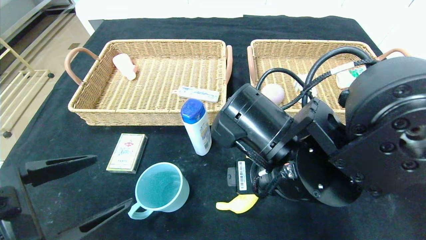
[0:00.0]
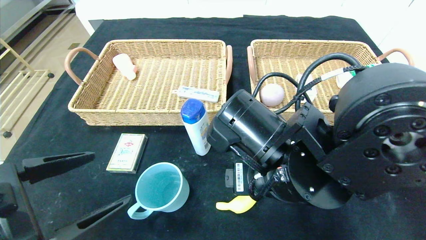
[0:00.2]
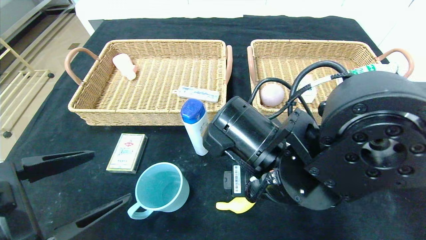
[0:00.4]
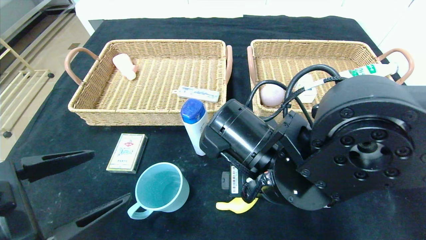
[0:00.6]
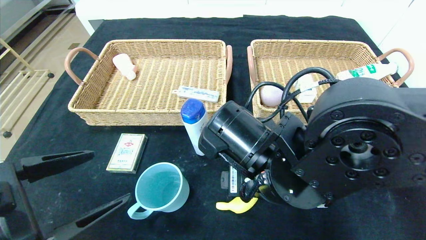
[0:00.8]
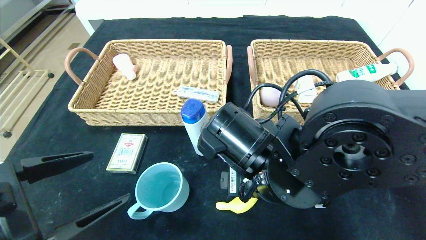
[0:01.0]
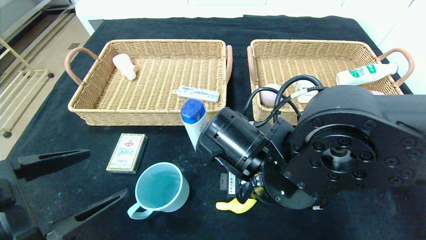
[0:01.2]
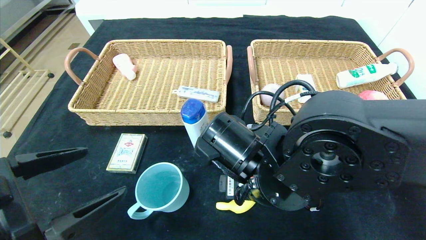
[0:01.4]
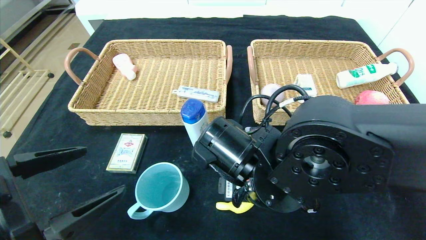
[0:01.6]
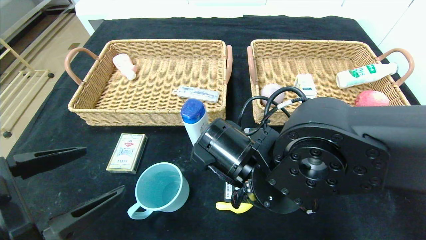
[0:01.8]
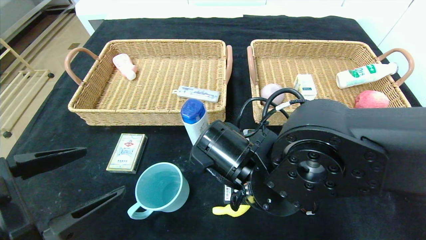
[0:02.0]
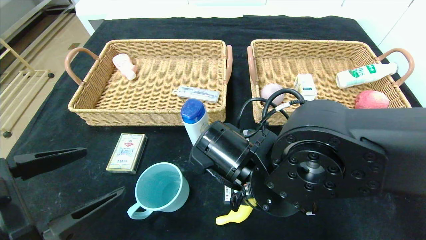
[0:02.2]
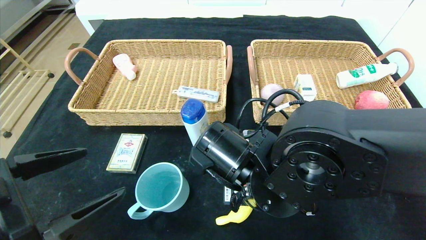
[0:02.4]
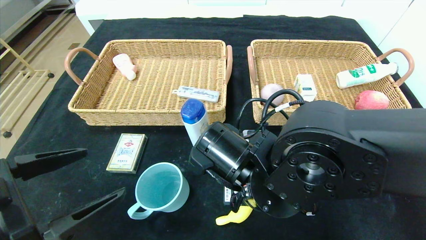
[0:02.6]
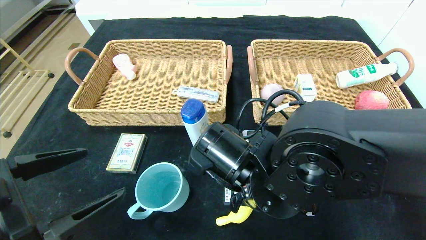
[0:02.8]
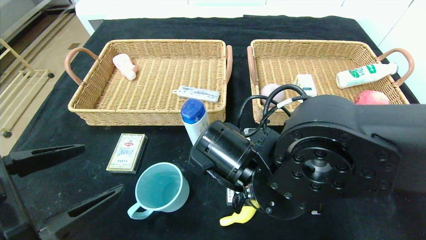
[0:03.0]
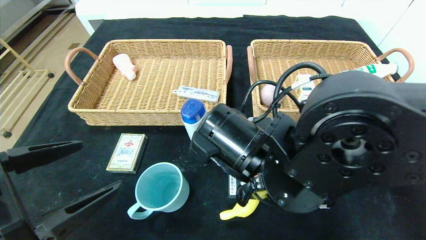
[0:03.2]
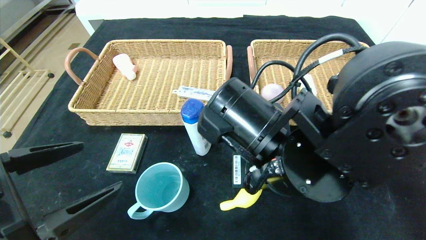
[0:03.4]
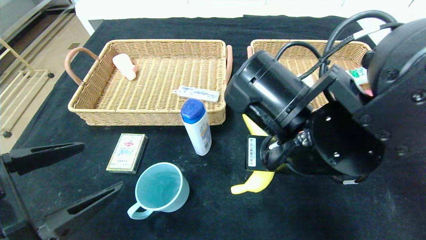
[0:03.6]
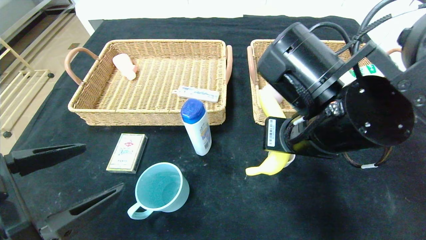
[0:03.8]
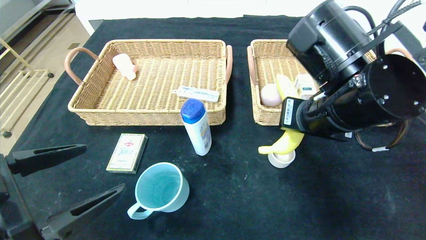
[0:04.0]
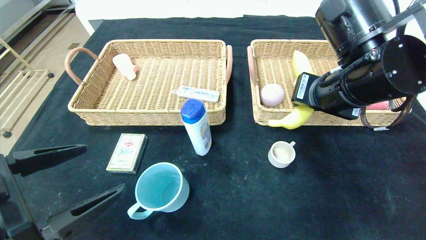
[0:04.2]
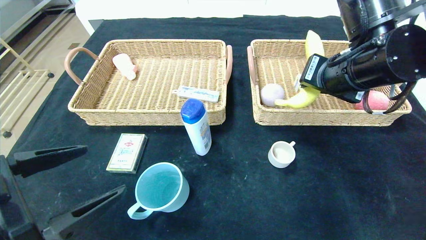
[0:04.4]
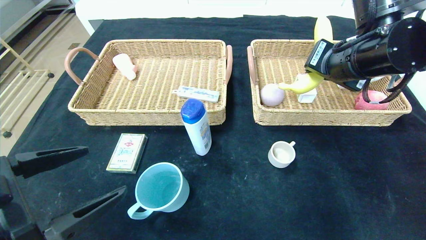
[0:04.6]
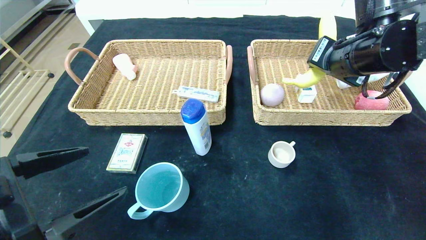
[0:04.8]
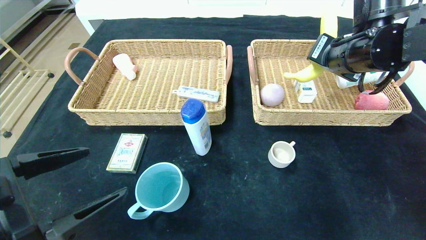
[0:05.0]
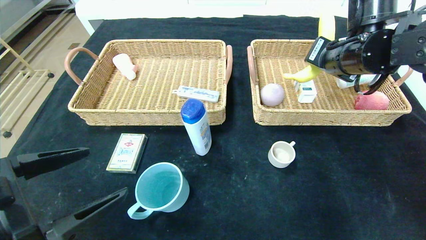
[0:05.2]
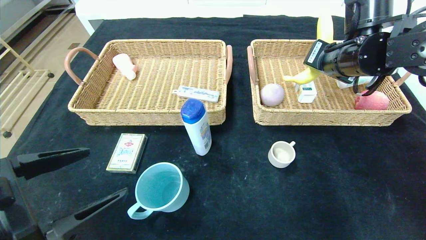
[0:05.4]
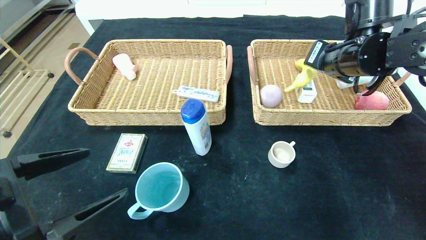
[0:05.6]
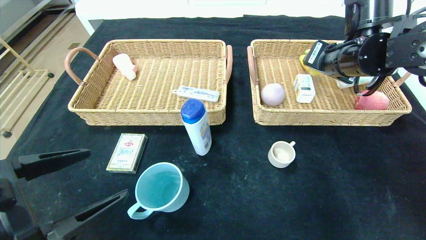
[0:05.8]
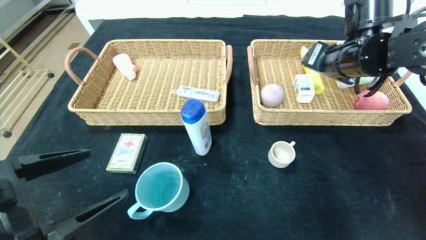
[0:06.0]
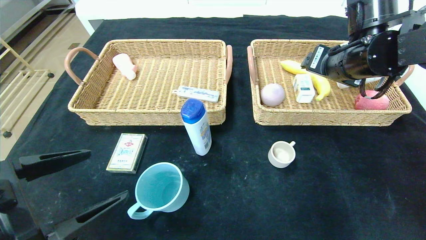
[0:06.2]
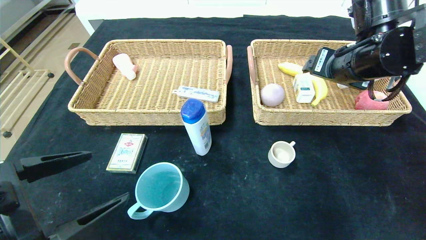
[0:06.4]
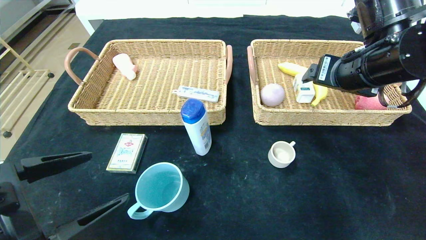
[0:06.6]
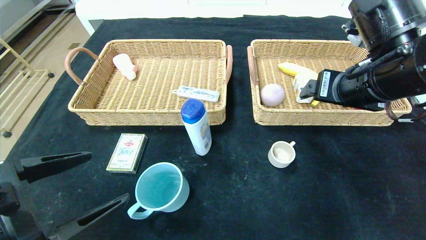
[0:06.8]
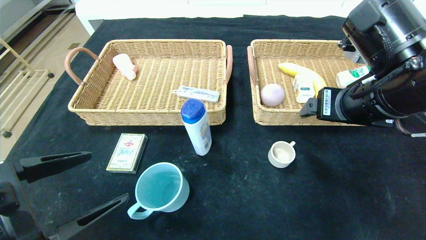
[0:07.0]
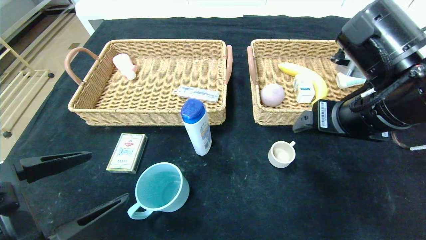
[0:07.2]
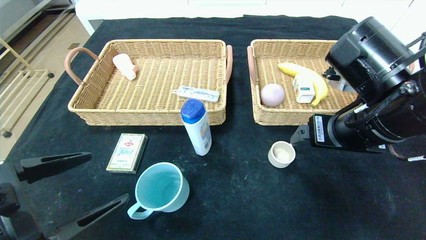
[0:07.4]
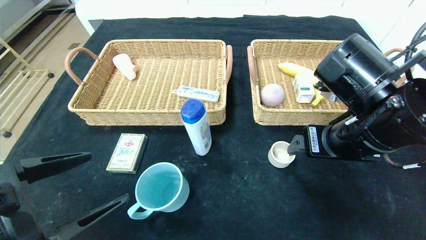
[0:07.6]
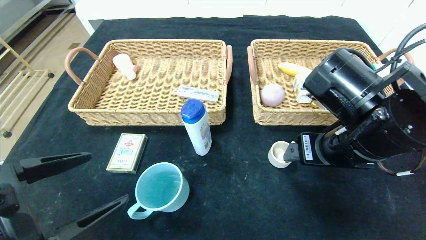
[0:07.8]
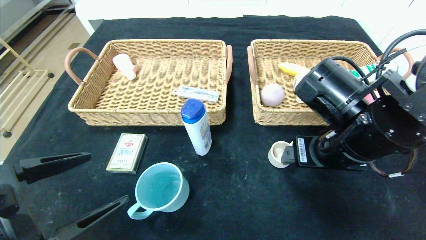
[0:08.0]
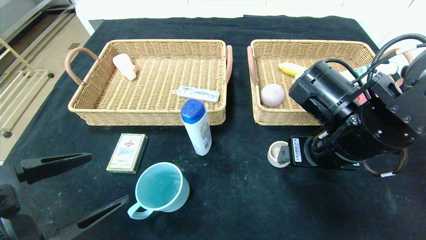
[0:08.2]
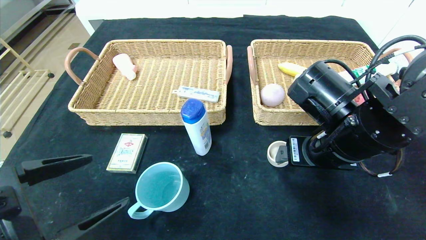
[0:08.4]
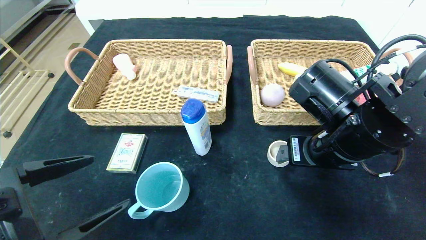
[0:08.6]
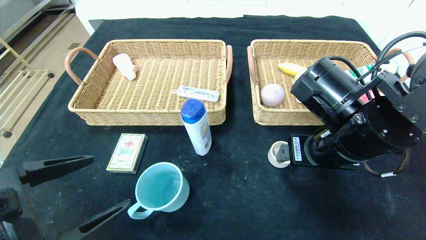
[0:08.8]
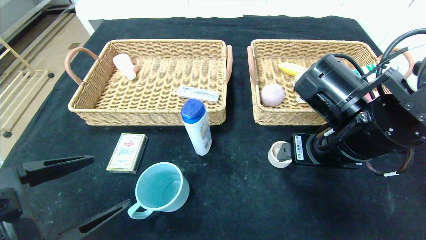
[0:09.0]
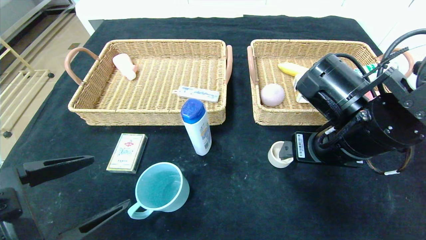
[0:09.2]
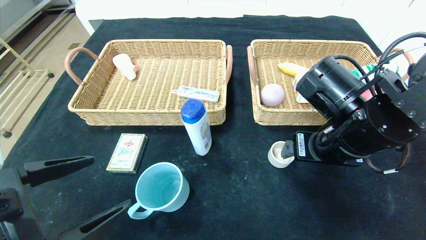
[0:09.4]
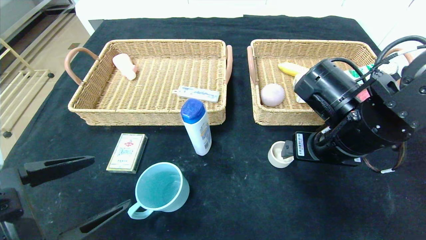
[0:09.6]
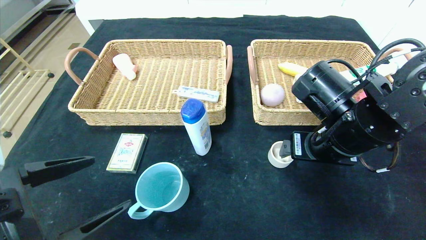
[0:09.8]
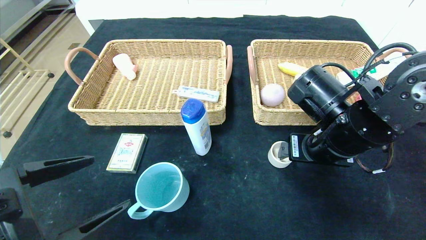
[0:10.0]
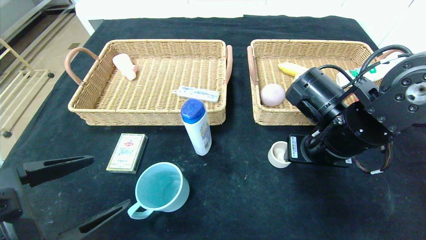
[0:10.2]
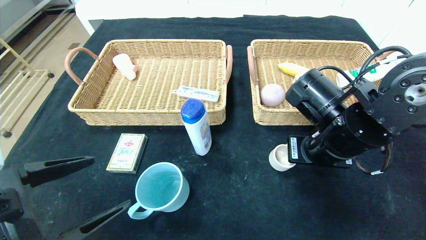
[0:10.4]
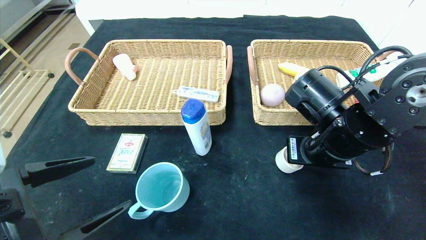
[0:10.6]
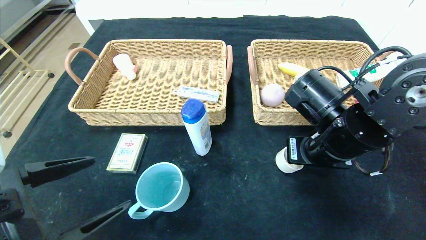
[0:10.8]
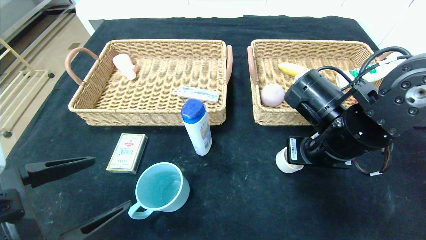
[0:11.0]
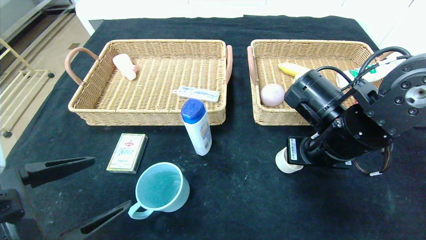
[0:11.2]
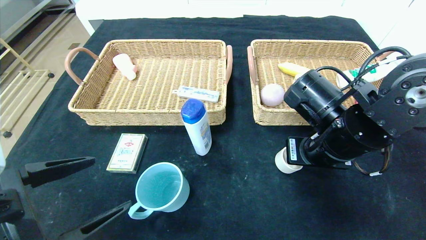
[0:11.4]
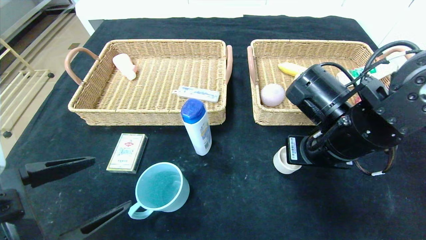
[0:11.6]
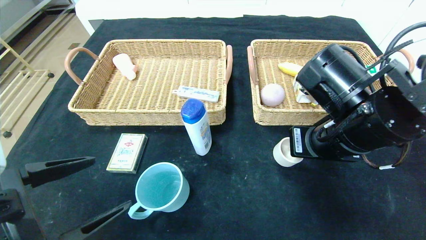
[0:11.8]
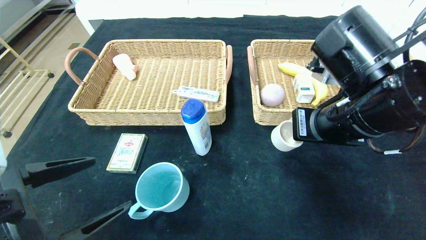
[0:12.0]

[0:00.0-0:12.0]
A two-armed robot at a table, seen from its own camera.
Step, 0:00.0 to 0:07.4: Pick up the banana and put it in the right basket.
0:01.6 to 0:03.0: The right gripper closes up.
0:03.0 to 0:04.4: The right gripper shifts about 20 cm to the right, upward and forward.
0:04.4 to 0:06.0: The right gripper travels forward by about 5 cm, and opens up.
0:06.0 to 0:07.6: The right gripper shifts about 15 cm backward and downward.
0:07.6 to 0:09.0: The grippers make only small movements.
0:09.0 to 0:10.4: The right gripper closes up.
0:10.4 to 0:12.0: The right gripper moves upward, roughly 5 cm, and closes its fingers.

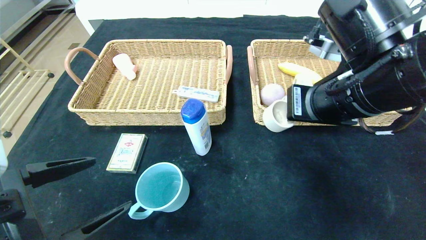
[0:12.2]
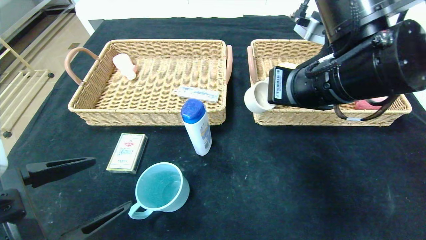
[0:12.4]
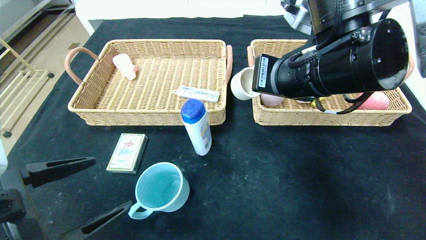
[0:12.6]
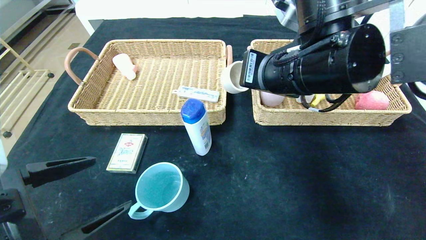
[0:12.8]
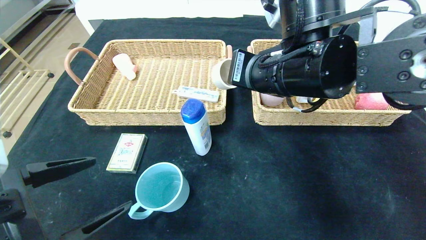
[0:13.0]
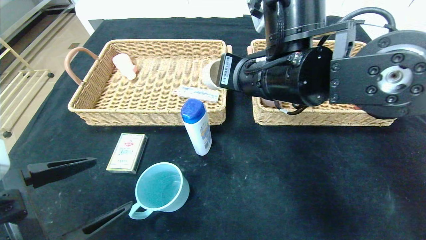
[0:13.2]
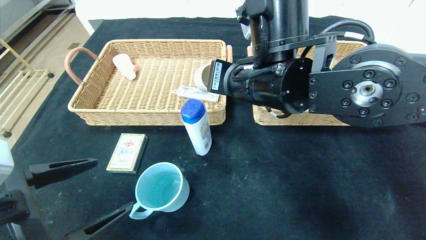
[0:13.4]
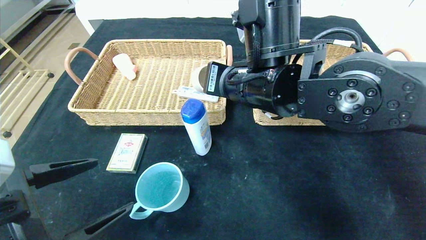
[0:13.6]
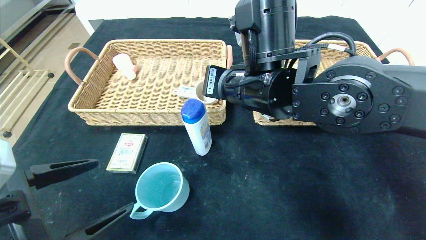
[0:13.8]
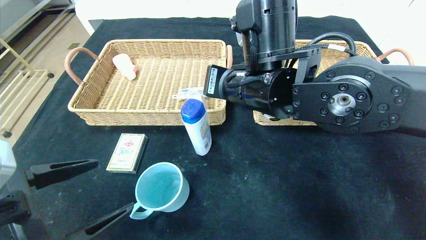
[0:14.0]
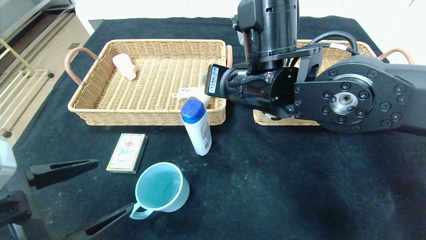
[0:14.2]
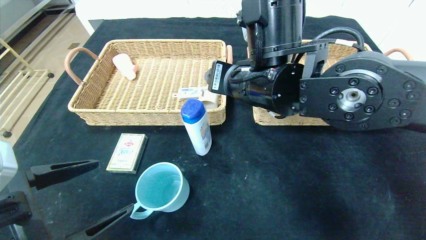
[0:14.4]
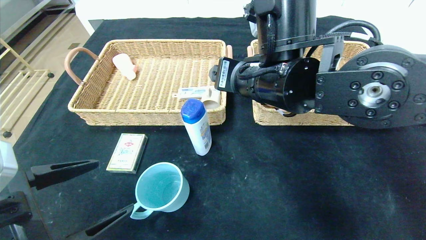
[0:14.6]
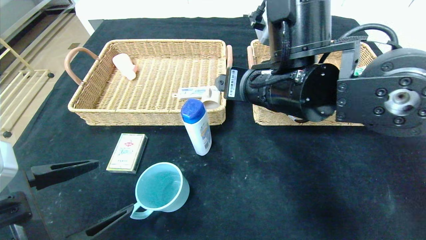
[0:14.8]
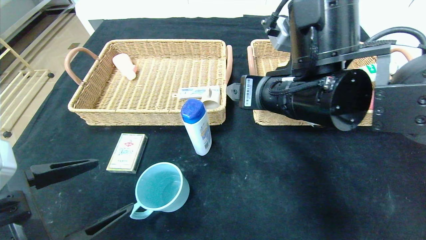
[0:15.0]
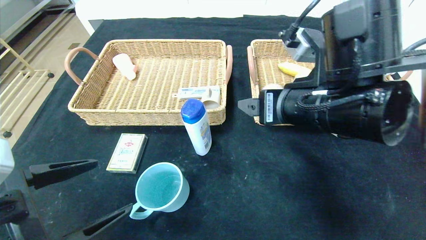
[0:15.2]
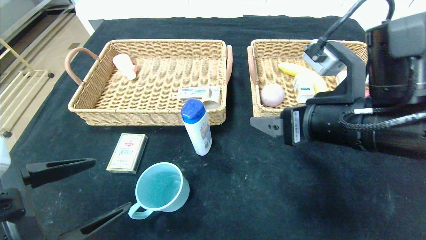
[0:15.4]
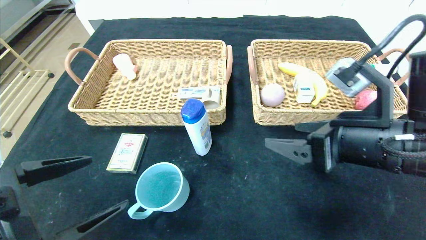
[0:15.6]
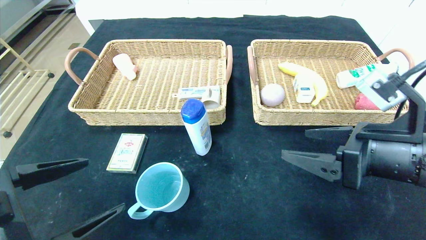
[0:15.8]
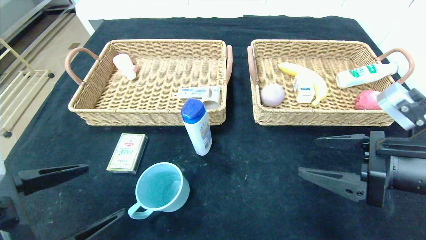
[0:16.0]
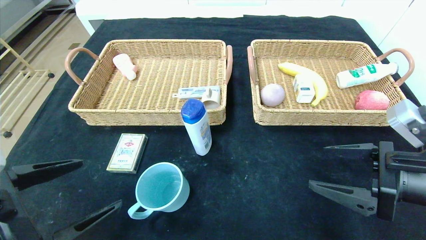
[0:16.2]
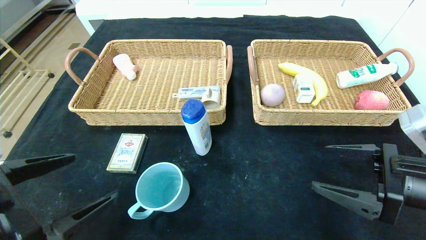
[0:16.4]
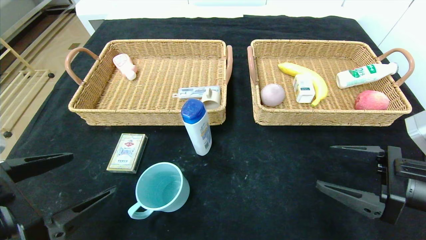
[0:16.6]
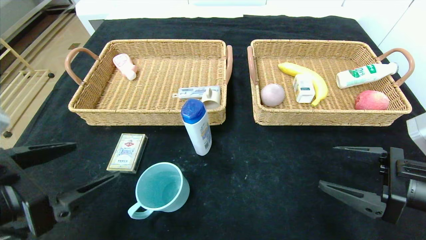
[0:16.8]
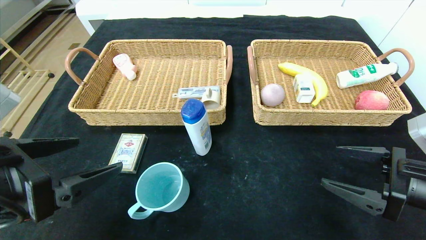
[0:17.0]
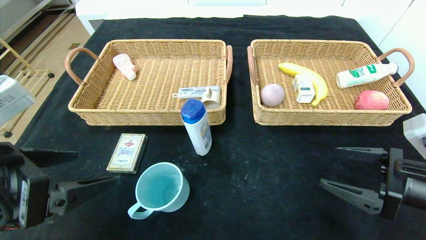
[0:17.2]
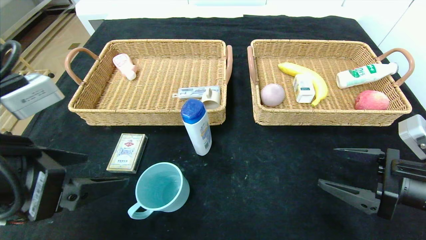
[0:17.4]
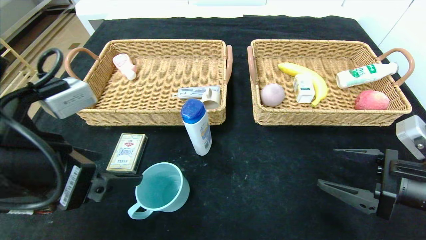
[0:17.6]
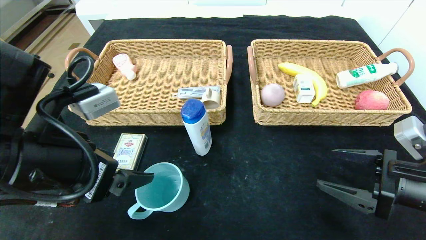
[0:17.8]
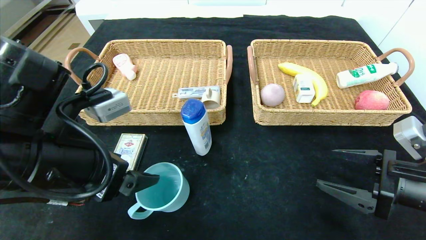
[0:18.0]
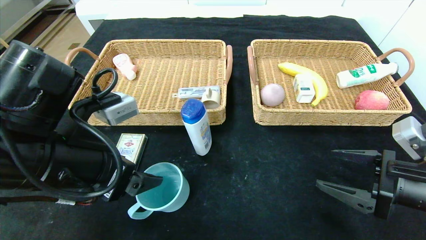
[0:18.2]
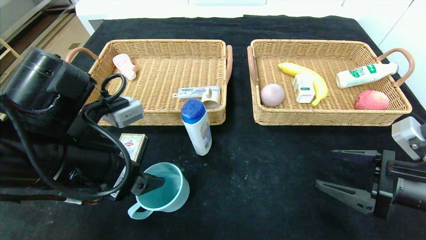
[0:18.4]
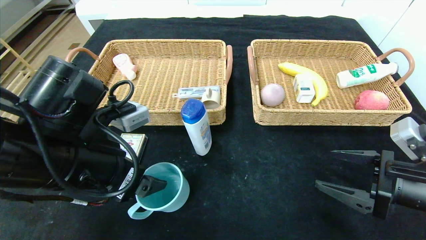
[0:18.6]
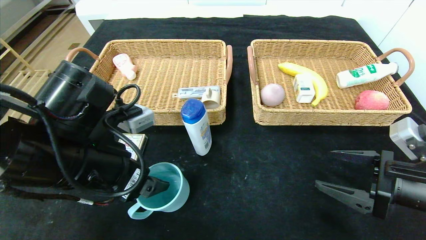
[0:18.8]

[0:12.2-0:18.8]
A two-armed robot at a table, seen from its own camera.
0:12.2 to 0:13.8: The right gripper heads to the left and forward, covering about 10 cm.
0:13.8 to 0:15.4: The right gripper moves to the right and backward, some 15 cm, and opens.
0:15.4 to 0:17.2: The left gripper goes about 5 cm upward; the right gripper goes about 15 cm to the right and downward.
0:17.2 to 0:18.8: The left gripper shifts roughly 10 cm forward and to the right.
